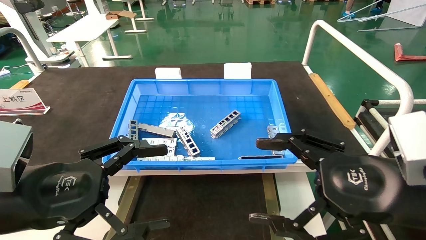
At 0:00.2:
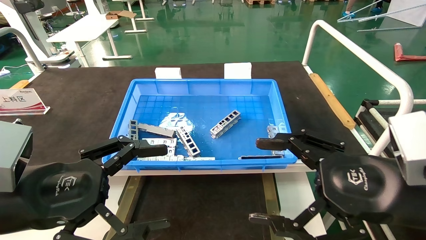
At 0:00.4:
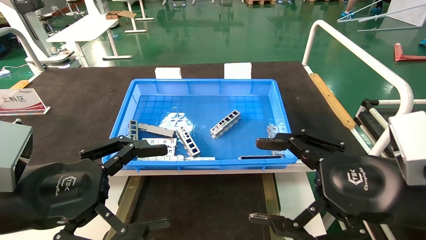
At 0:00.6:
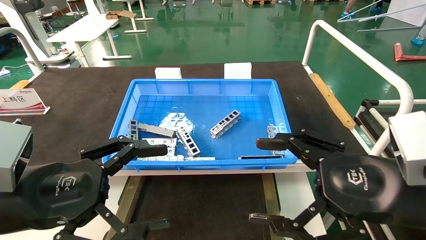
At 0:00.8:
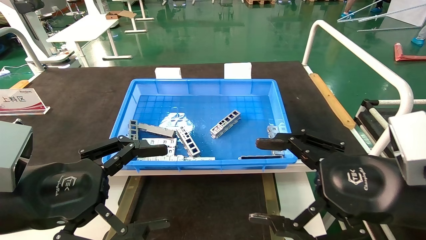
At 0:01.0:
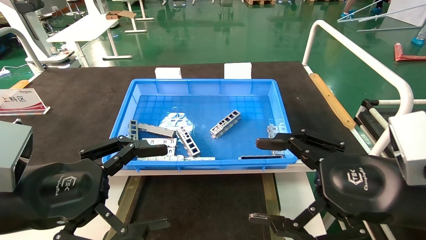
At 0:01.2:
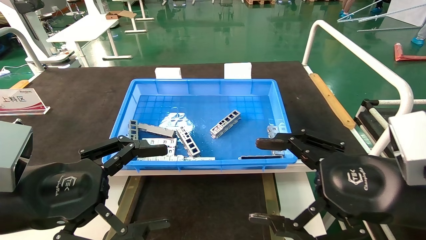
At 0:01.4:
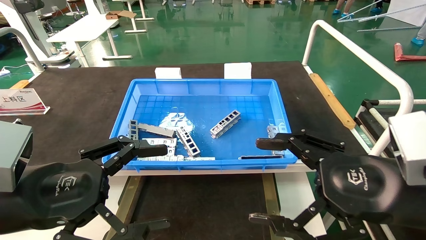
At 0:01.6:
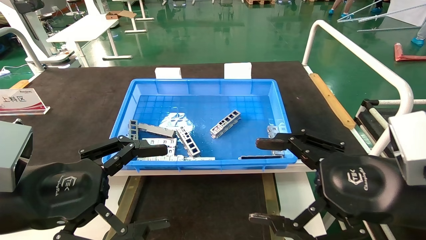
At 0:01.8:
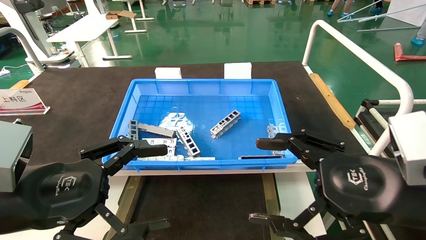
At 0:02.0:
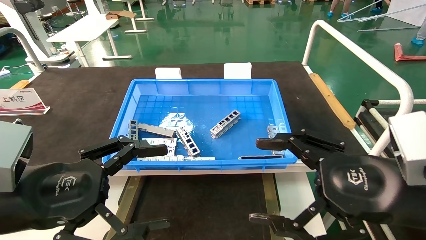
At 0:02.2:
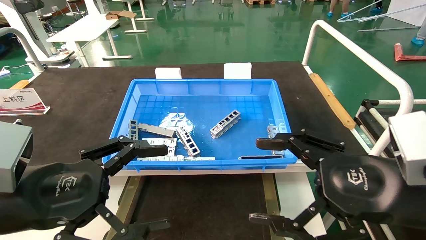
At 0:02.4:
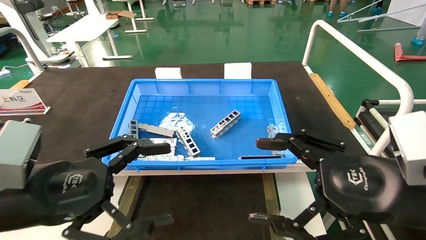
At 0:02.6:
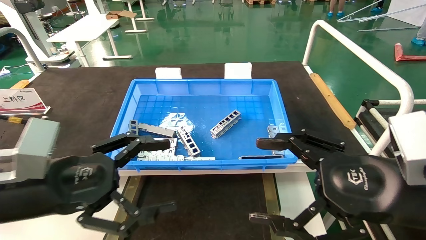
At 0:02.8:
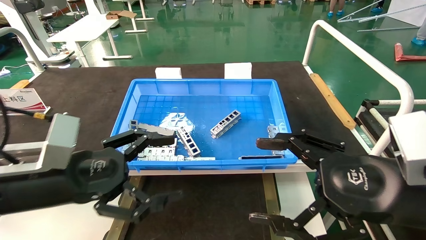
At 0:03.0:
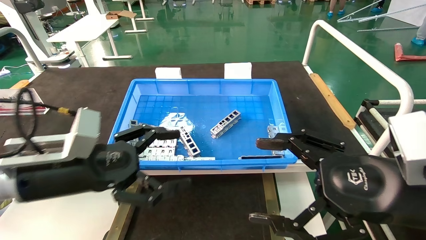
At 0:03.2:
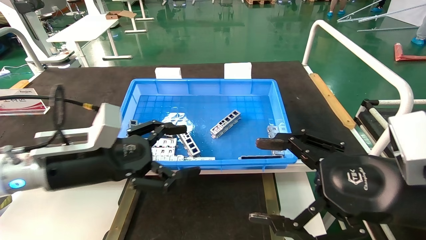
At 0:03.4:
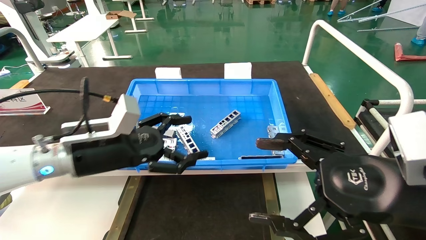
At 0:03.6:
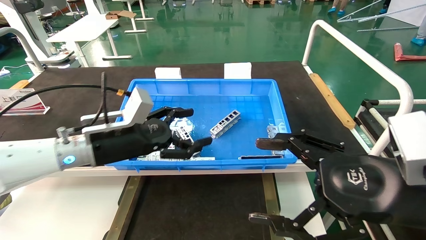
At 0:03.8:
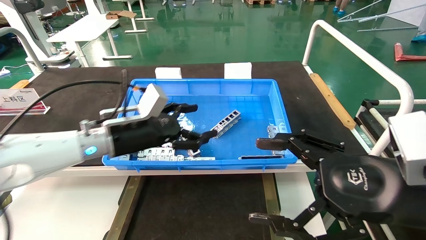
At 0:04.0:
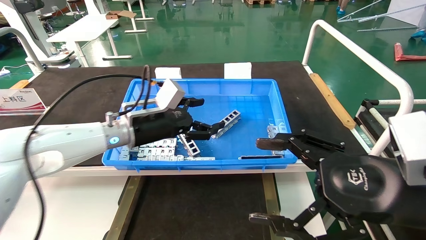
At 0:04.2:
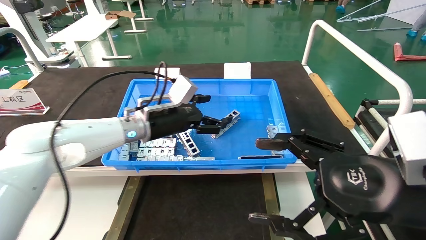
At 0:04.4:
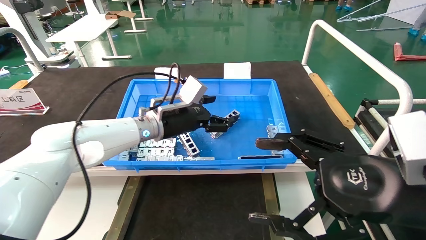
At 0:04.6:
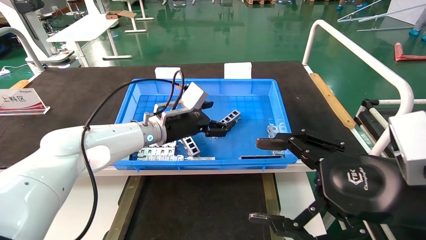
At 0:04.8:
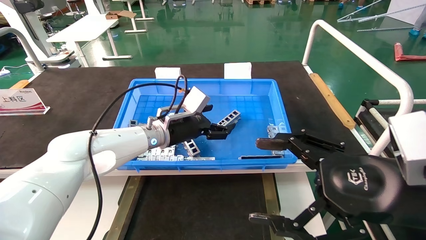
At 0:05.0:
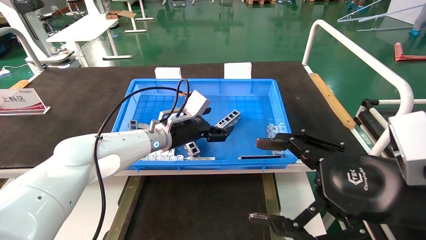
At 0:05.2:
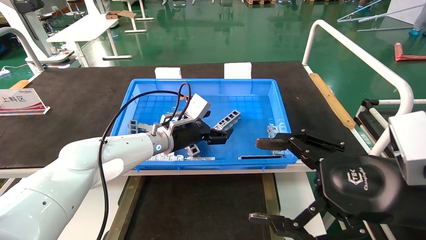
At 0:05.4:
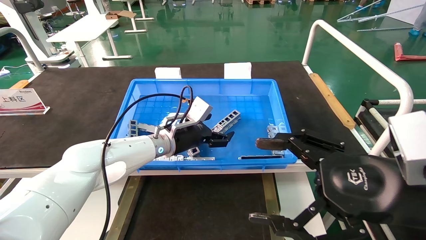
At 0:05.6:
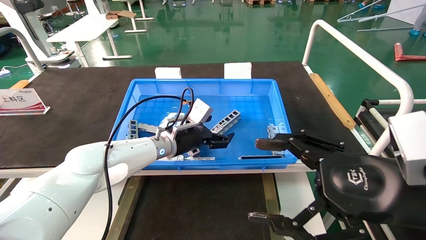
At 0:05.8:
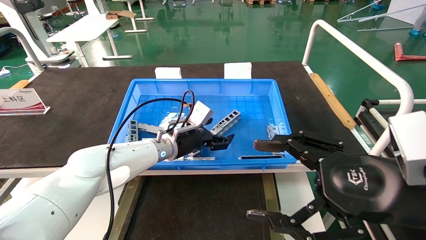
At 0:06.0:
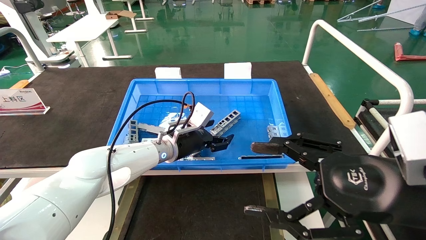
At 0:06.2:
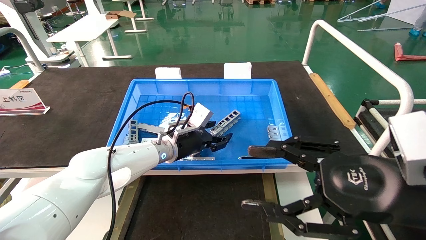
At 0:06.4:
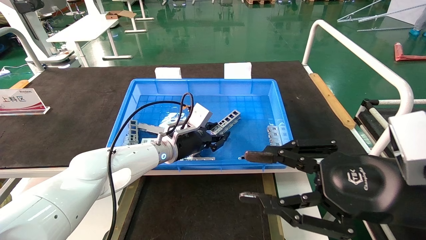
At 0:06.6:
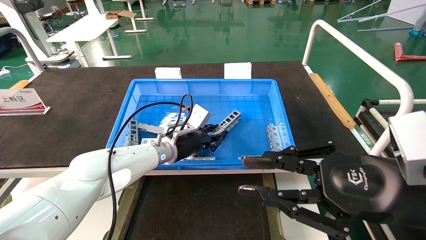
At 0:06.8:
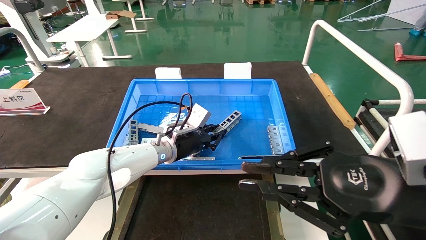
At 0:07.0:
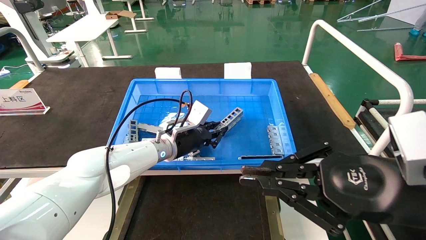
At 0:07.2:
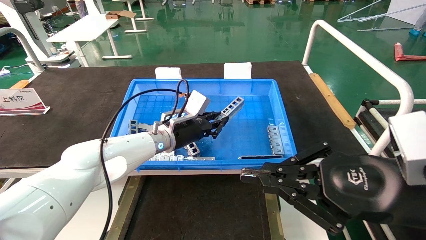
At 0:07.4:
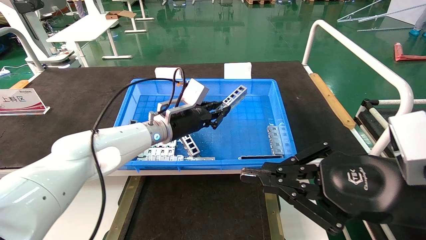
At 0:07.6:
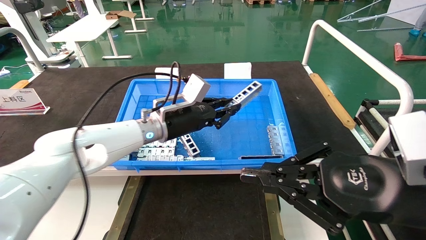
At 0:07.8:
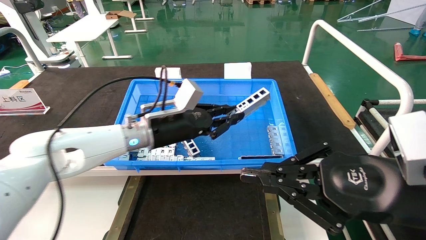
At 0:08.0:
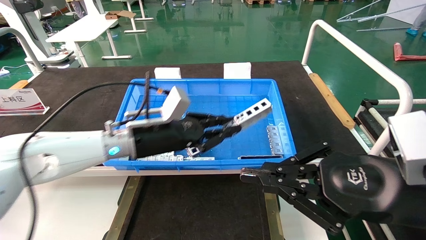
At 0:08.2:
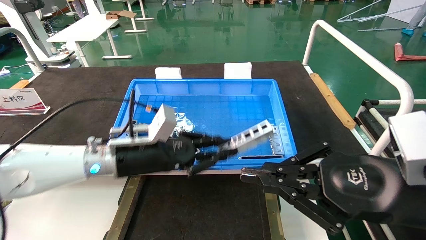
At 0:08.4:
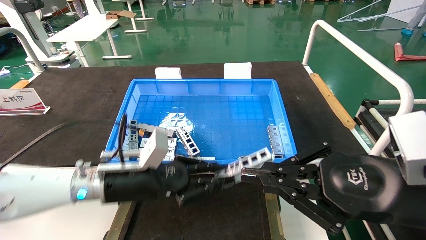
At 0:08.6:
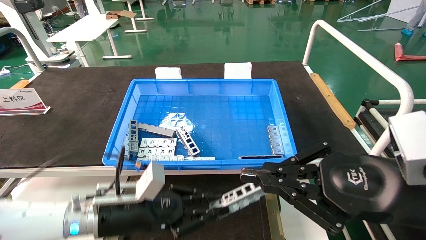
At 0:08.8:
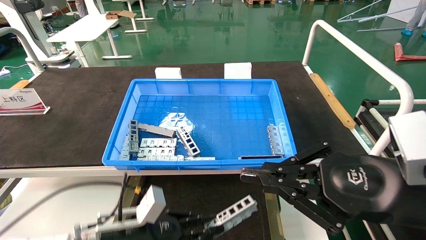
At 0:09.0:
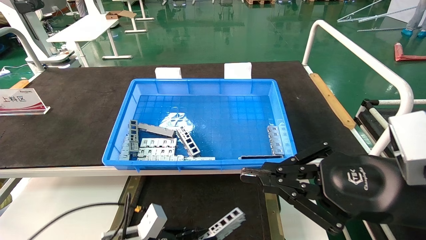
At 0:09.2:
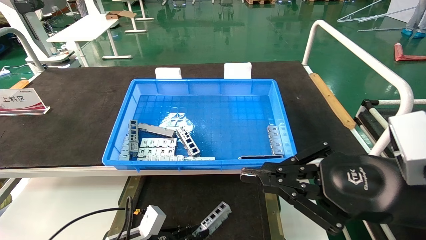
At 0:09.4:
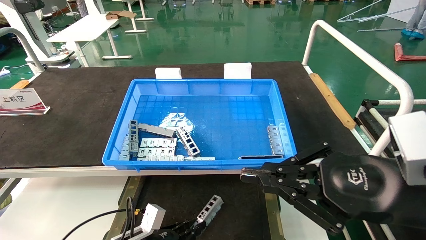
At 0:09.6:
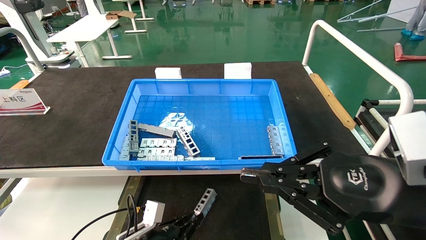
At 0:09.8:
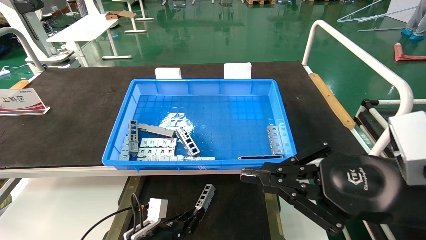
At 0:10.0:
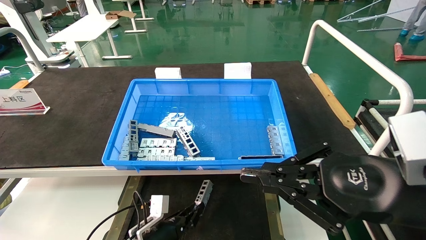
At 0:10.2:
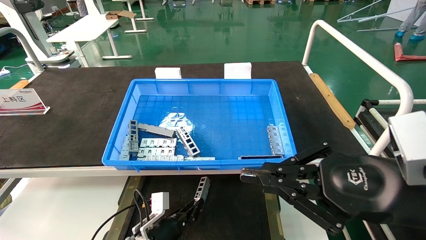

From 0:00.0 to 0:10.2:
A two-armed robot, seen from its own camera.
Task of the whole recording: Grasp the part with one hand and place it on the black container.
Step, from 0:02.6 to 0:07.4: Pick up the front USB bracket from the feeding area.
From 0:00.0 to 0:01.4: The two grippers keep their place.
From 0:01.4 to 0:03.0: The left gripper heads forward, covering about 10 cm.
From 0:03.0 to 0:04.4: The left gripper goes roughly 25 cm forward and to the right.
From 0:04.4 to 0:05.8: The left gripper moves downward, some 5 cm.
From 0:05.8 to 0:07.2: The left gripper closes its fingers. The right gripper closes up.
From 0:07.2 to 0:08.8: The left gripper shifts roughly 25 cm backward, downward and to the left.
From 0:08.8 to 0:10.2: The left gripper is displaced downward and forward by some 15 cm.

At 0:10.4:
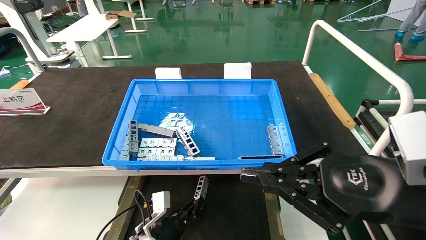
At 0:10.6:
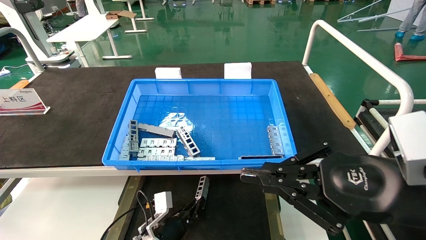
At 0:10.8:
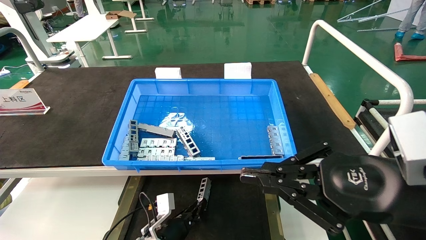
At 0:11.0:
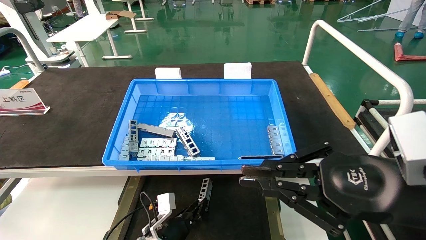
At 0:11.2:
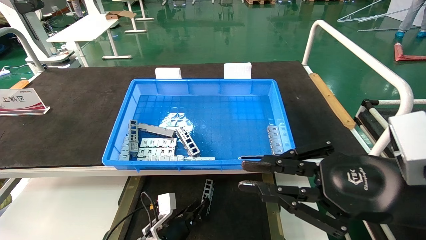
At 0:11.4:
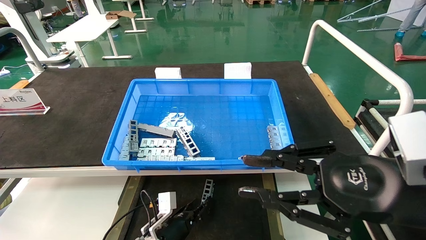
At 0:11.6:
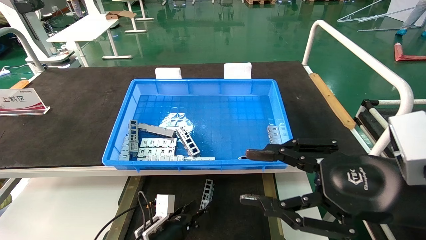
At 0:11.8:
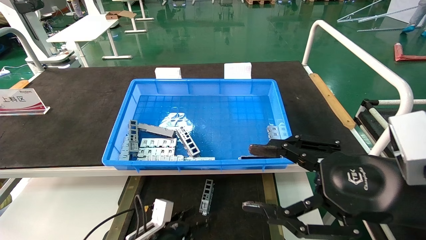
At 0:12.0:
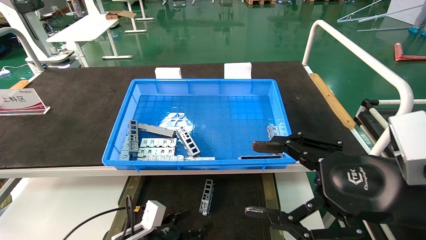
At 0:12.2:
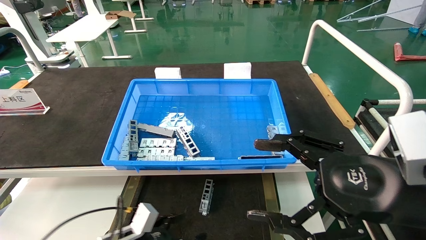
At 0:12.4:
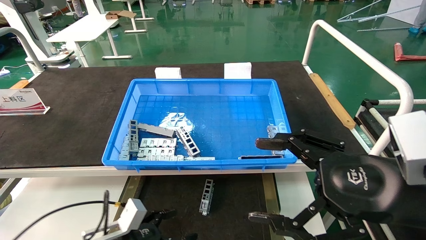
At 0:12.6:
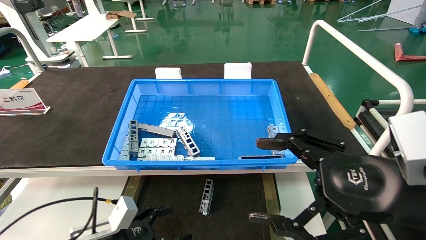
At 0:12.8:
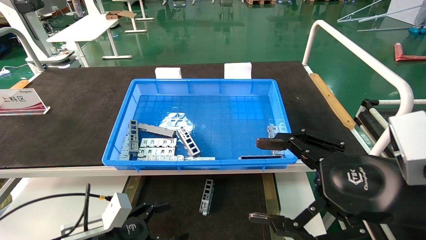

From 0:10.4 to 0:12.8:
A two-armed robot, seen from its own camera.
Task of the whole recording: Grasp the part with one hand and place it on the black container.
From 0:10.4 to 0:11.6: The right gripper opens; the left gripper opens up.
From 0:11.6 to 0:12.8: The left gripper moves to the left, upward and backward, some 15 cm, and opens up; the right gripper opens its fingers.

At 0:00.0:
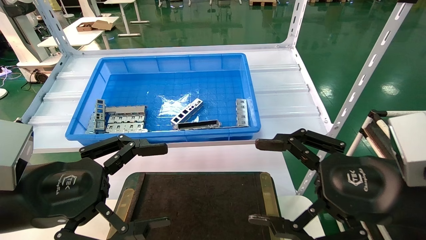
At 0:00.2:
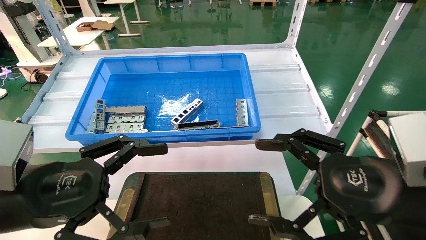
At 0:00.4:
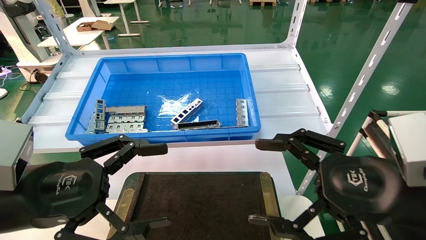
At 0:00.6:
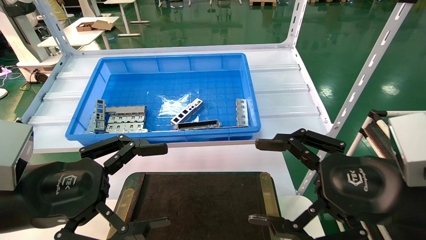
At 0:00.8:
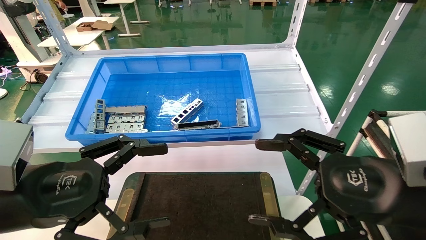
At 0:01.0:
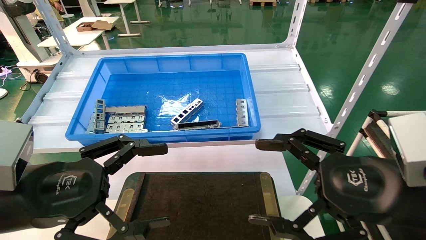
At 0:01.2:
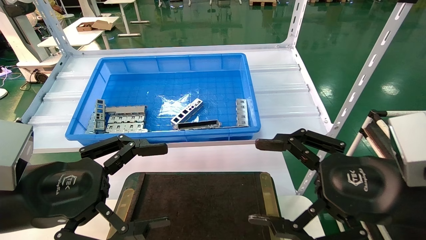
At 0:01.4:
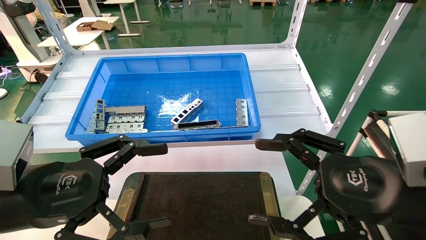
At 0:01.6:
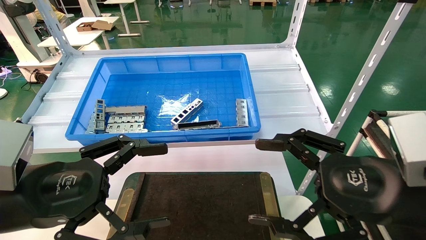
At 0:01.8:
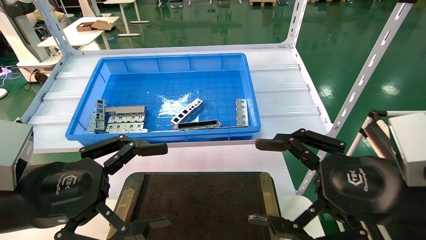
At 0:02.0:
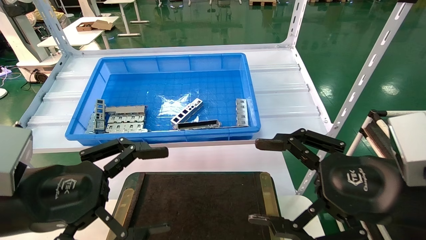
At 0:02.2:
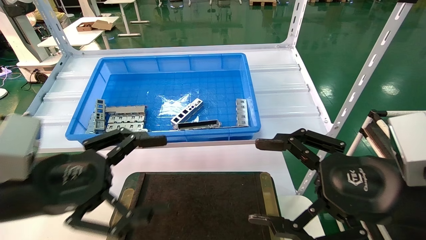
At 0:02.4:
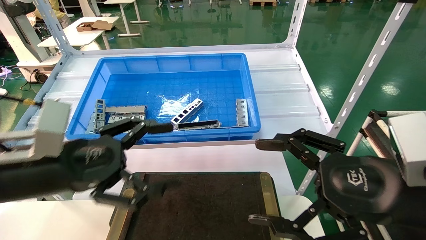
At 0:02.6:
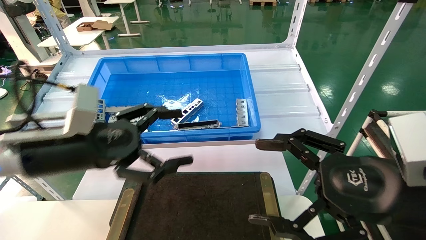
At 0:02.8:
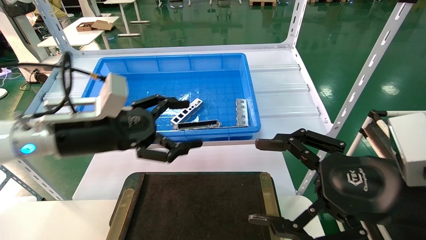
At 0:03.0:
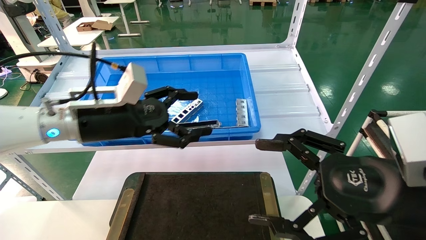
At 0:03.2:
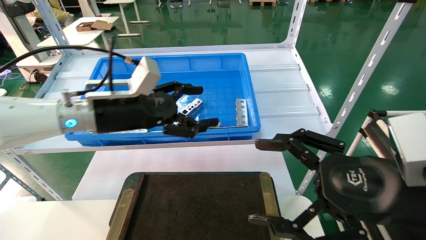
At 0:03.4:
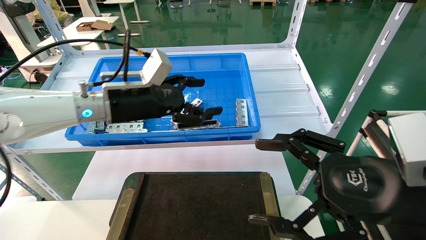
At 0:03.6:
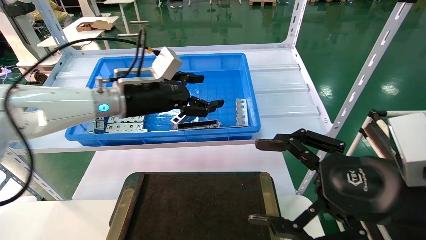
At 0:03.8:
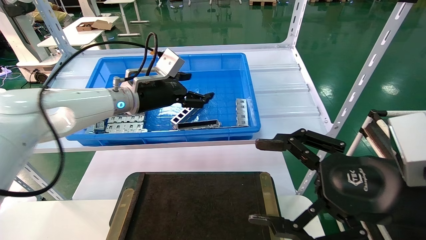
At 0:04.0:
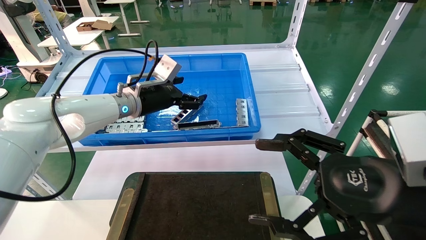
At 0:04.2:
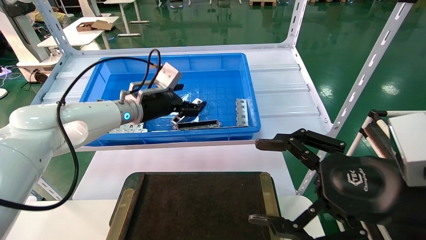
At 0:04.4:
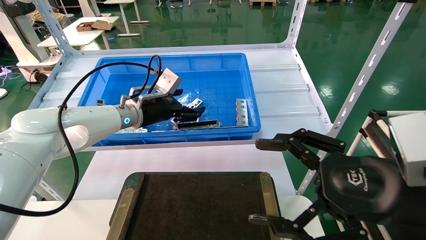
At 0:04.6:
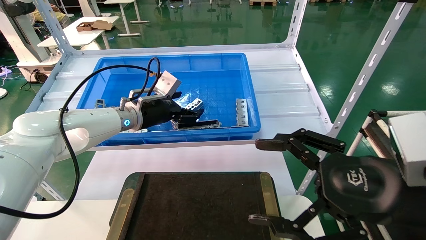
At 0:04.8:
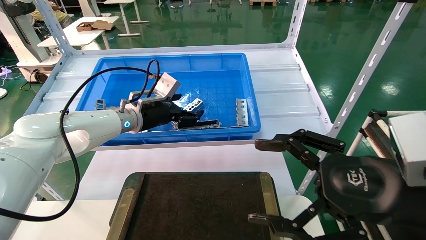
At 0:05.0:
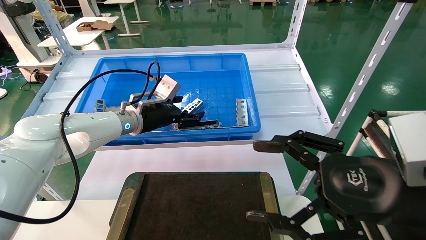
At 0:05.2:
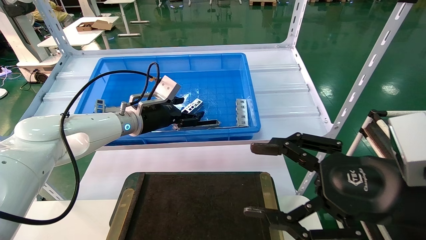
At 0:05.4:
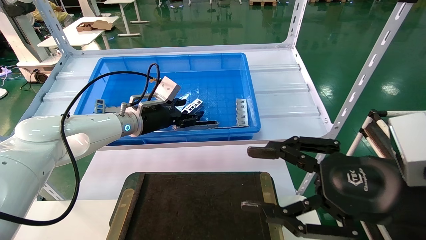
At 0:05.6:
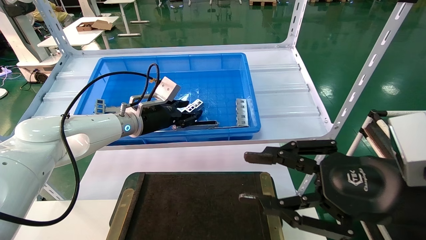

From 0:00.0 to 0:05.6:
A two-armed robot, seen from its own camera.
Task of the whole recording: Grasp the part with one hand and place it on the black container.
From 0:00.0 to 0:01.4: The two grippers keep their place.
From 0:01.4 to 0:02.8: The left gripper travels forward by approximately 15 cm.
From 0:02.8 to 0:04.2: The left gripper shifts some 15 cm forward.
From 0:04.2 to 0:05.6: The right gripper closes up. The left gripper closes up.